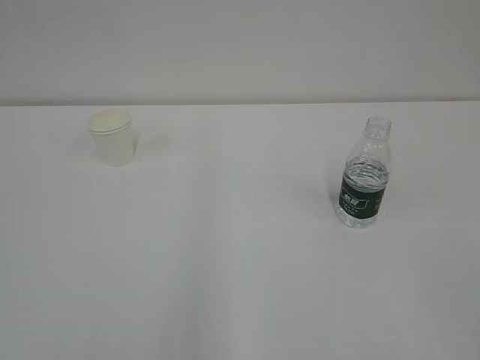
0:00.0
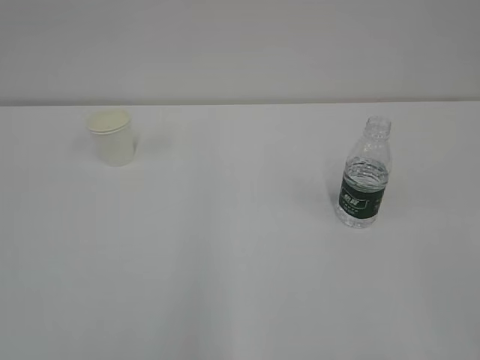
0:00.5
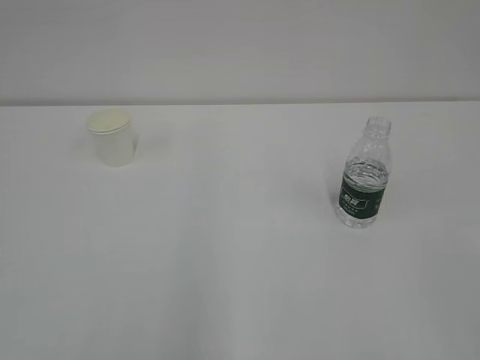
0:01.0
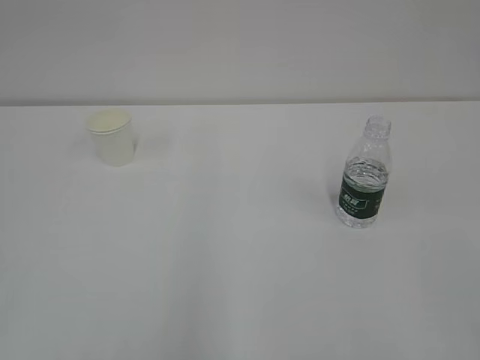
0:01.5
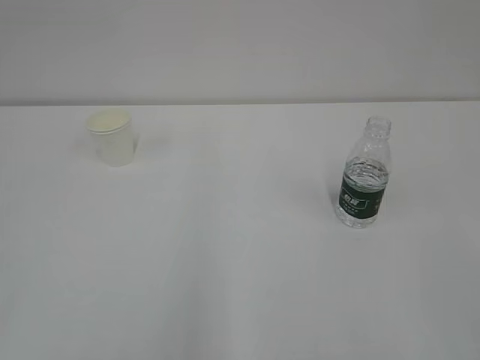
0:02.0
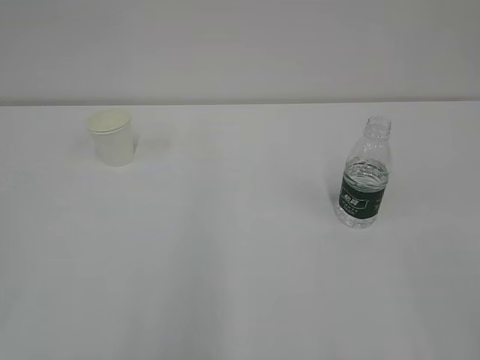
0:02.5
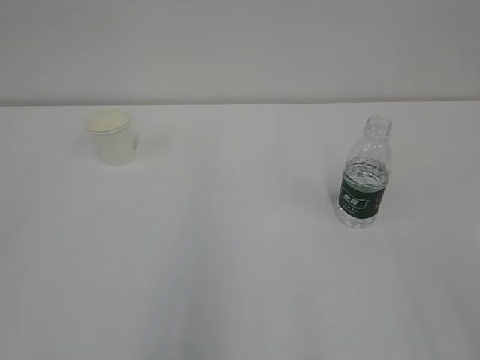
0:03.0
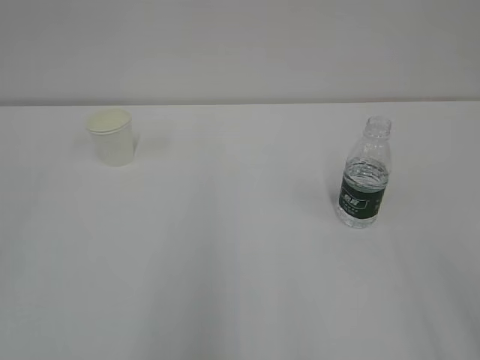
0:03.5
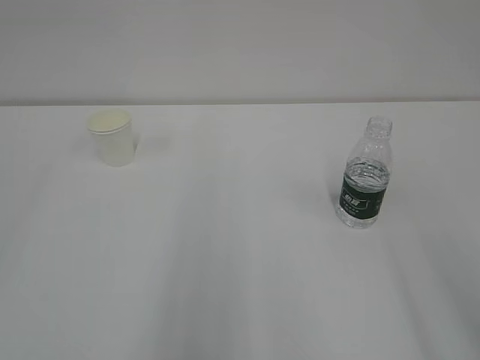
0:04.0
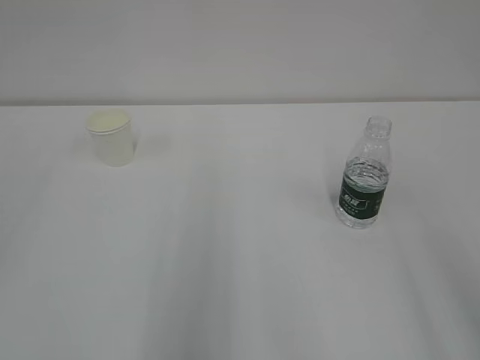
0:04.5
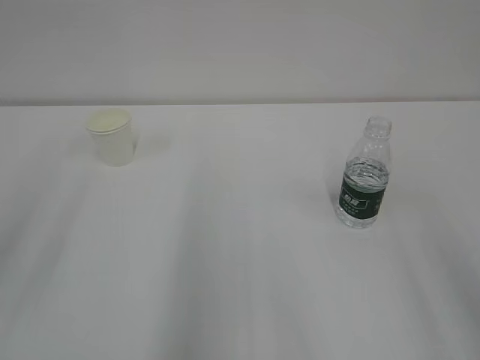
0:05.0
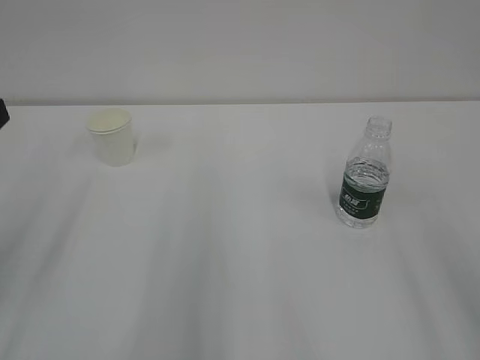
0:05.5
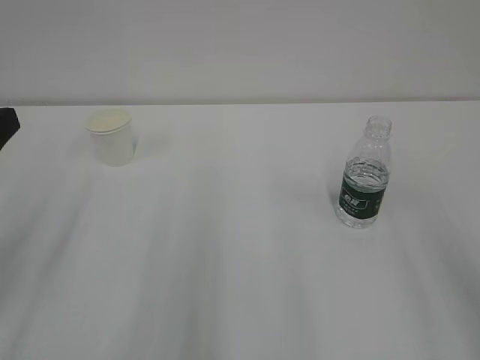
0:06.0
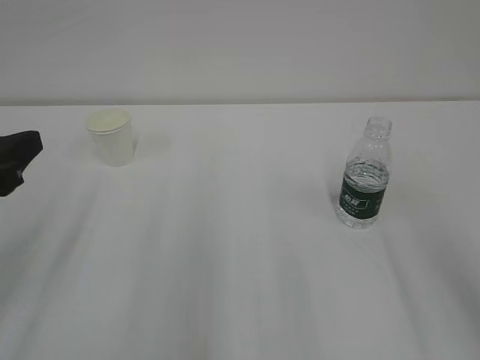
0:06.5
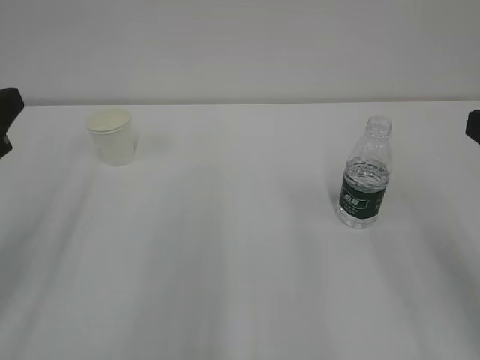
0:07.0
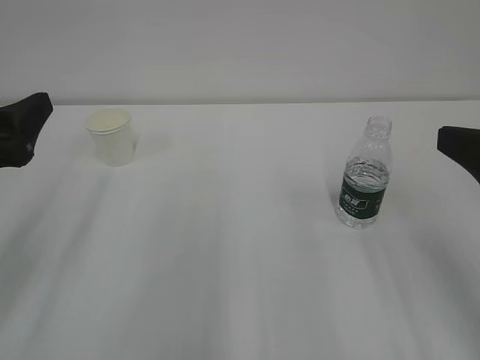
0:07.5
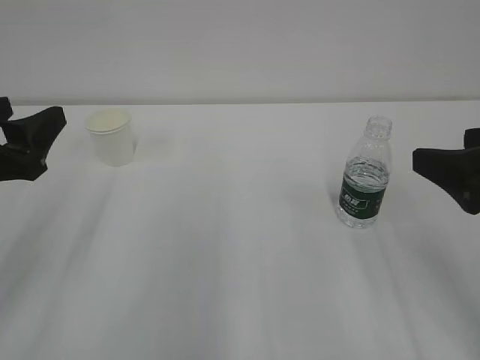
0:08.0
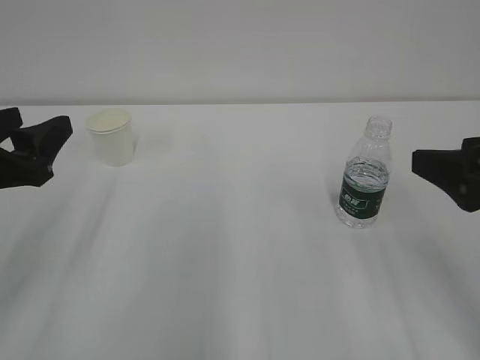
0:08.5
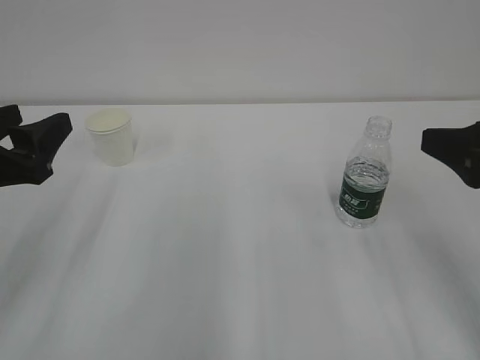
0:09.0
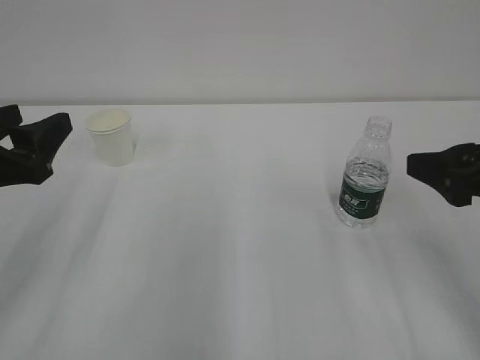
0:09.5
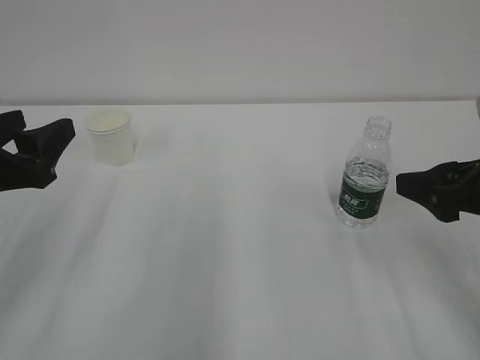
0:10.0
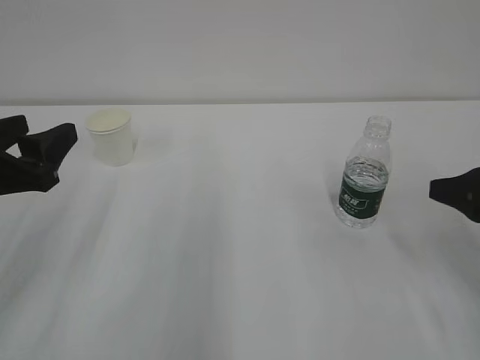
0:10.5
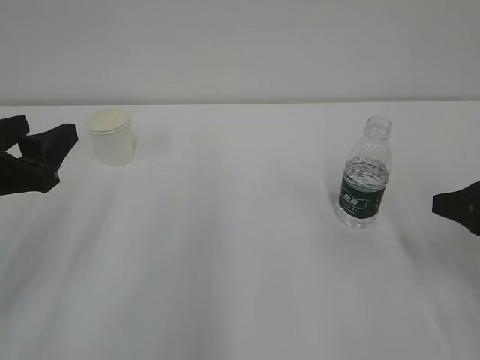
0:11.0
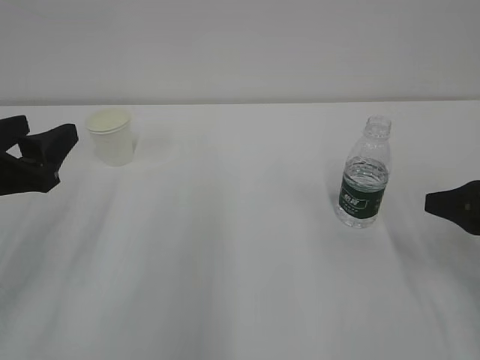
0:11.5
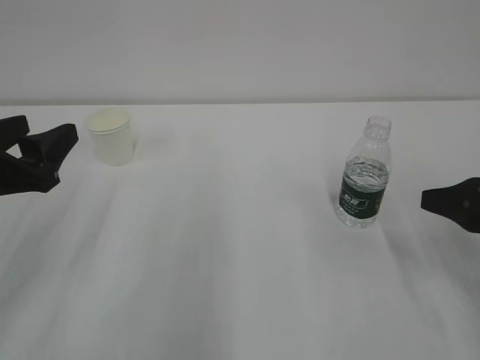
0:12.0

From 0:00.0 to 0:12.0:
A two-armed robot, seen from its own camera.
From 0:06.0 to 0:08.0: The right gripper travels forward and downward by approximately 10 cm, and opens its fingers.
From 0:08.0 to 0:10.0: The right gripper changes place by approximately 5 cm.
From 0:10.0 to 0:12.0: The right gripper is displaced to the right by roughly 5 cm.

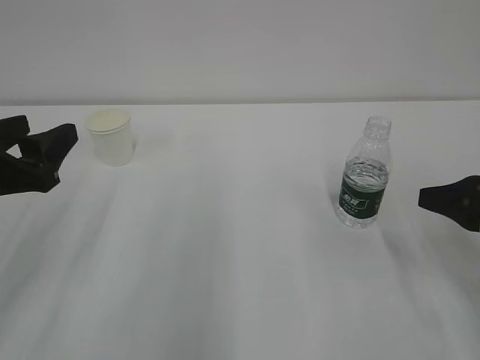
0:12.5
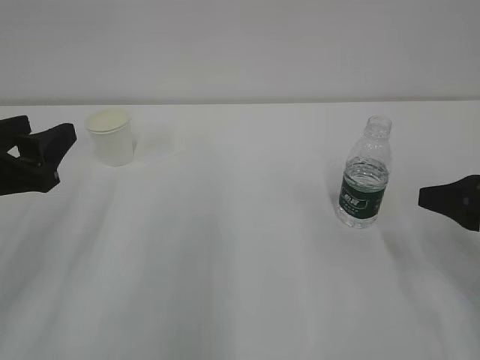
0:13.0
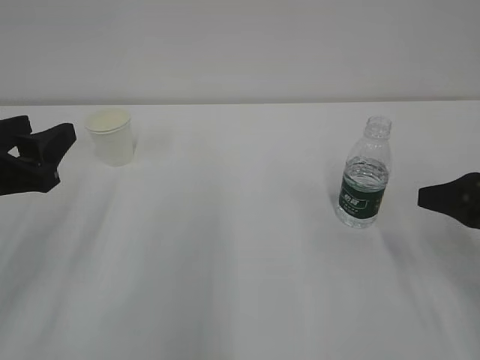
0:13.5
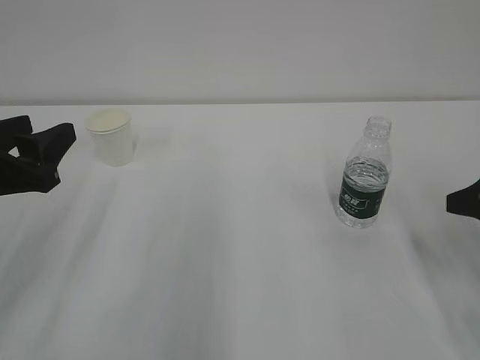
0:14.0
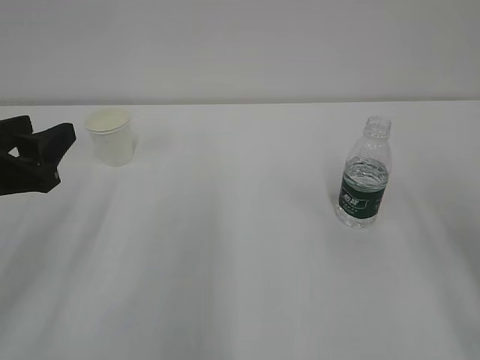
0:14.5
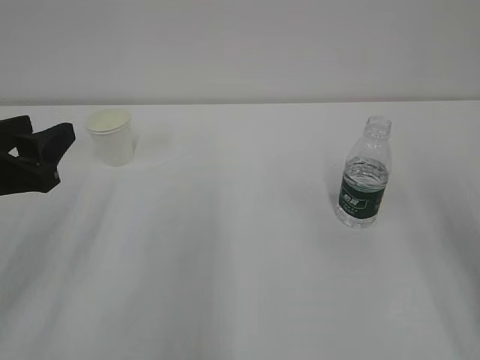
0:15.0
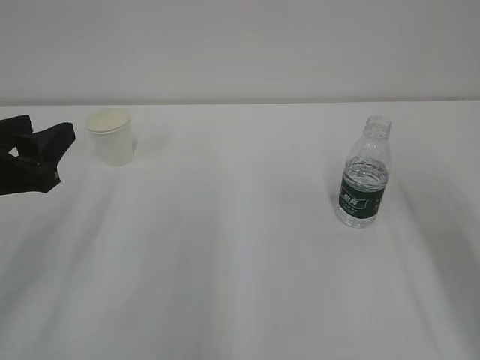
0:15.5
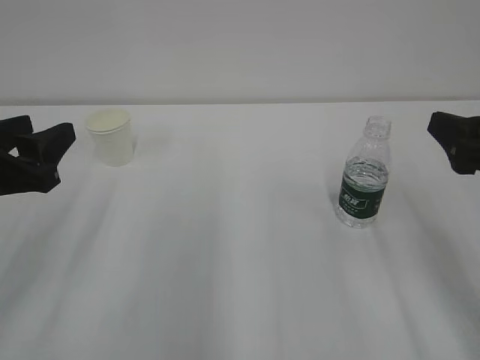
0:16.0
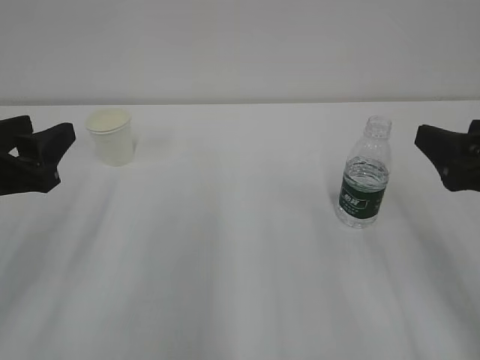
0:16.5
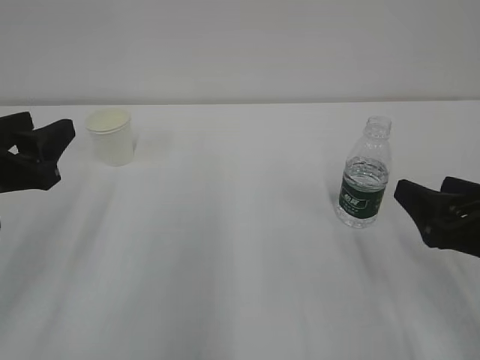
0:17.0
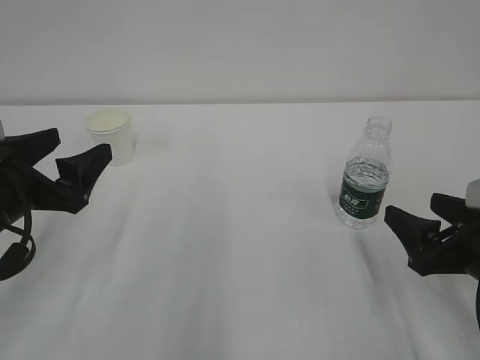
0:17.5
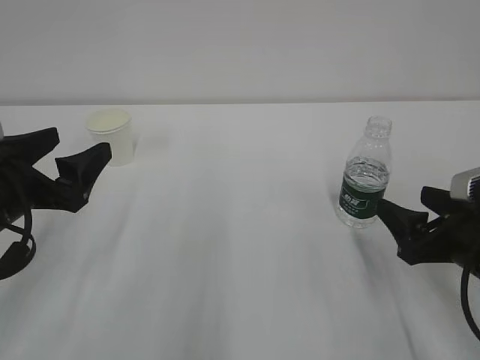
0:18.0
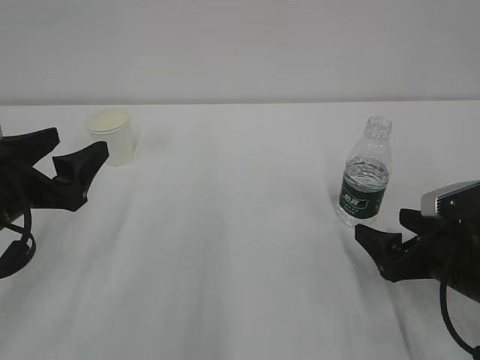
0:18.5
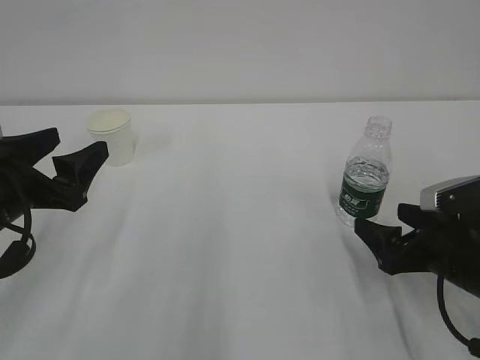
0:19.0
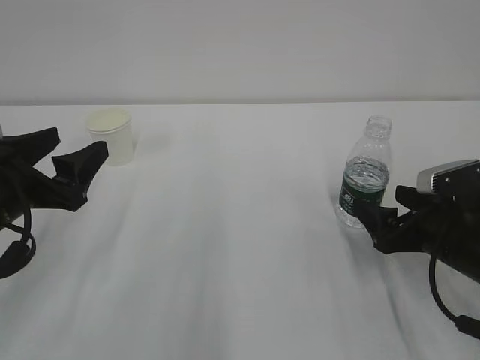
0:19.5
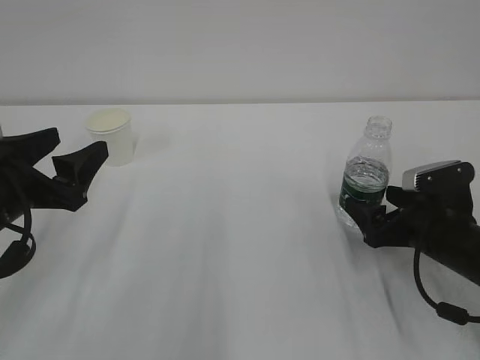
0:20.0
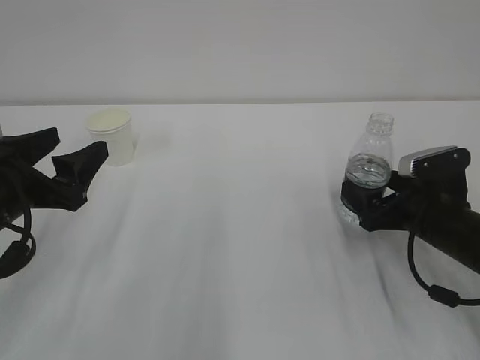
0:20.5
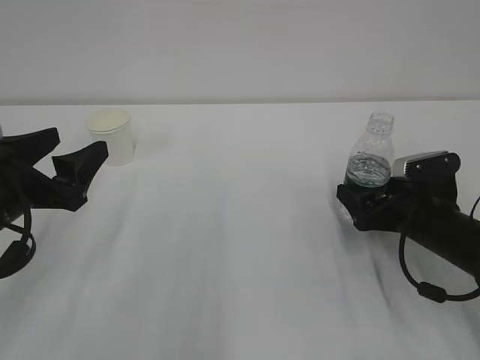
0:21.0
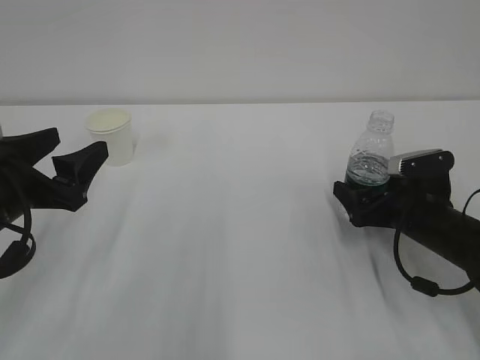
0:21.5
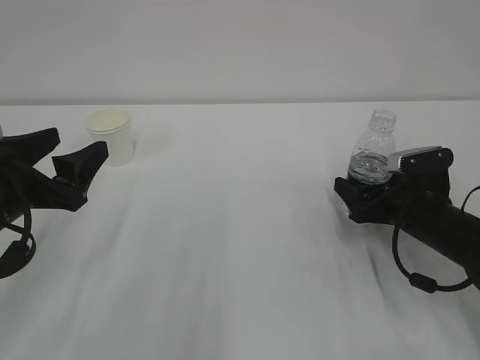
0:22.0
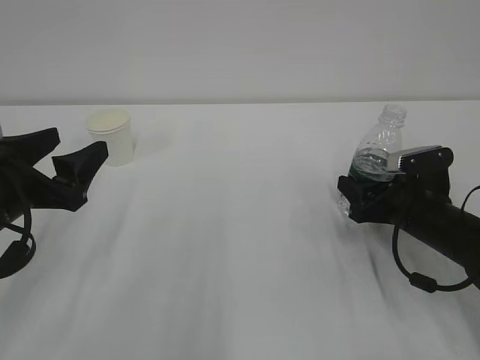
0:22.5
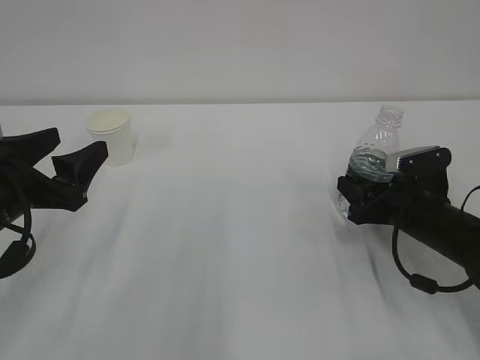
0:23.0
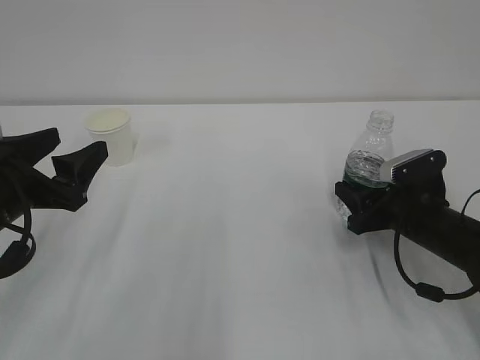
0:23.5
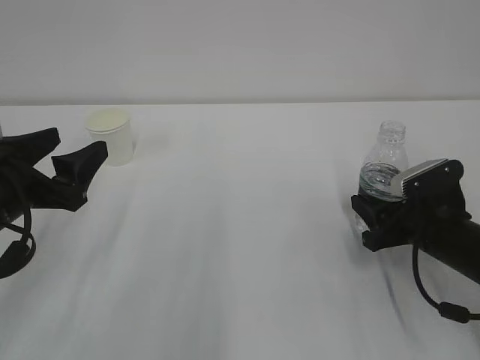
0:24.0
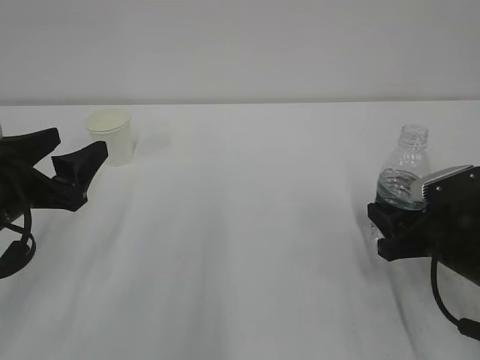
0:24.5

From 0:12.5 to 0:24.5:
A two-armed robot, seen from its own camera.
From 0:12.5 to 0:14.5: The right gripper moves upward, approximately 5 cm.
From 0:14.5 to 0:16.5: The right gripper shifts about 5 cm to the left.
From 0:16.5 to 0:18.5: The right gripper goes about 15 cm downward.
From 0:18.5 to 0:20.5: The right gripper goes roughly 5 cm forward.
From 0:20.5 to 0:22.5: The right gripper closes up.
From 0:22.5 to 0:24.5: The right gripper shifts roughly 5 cm backward.

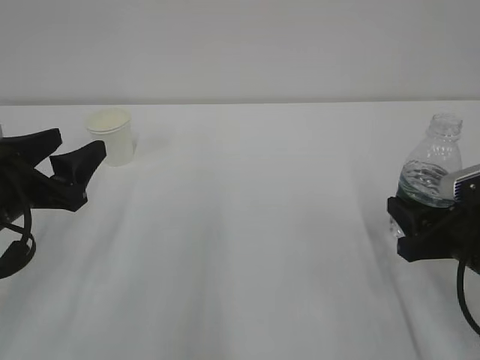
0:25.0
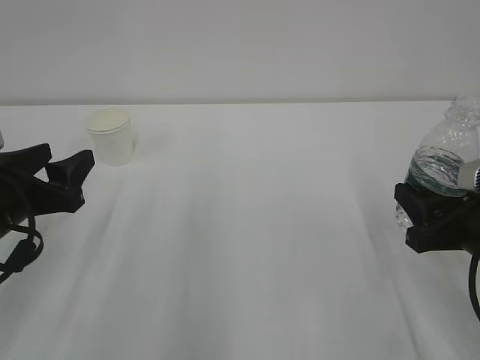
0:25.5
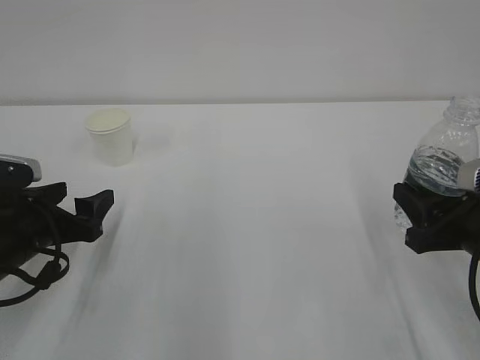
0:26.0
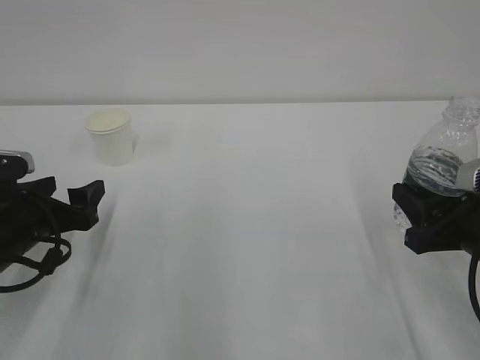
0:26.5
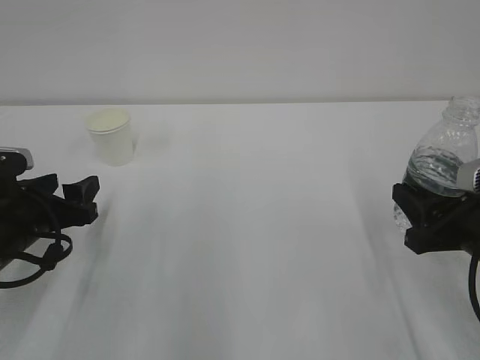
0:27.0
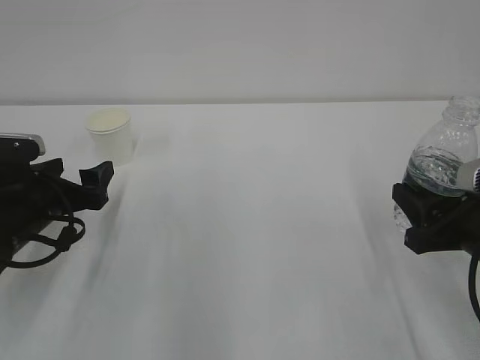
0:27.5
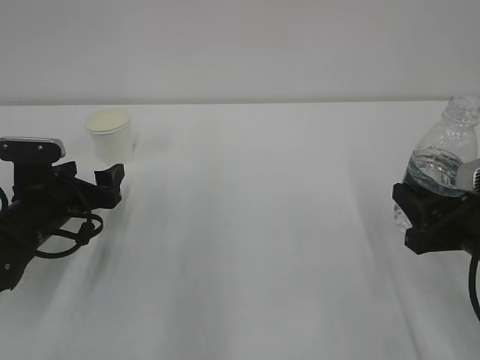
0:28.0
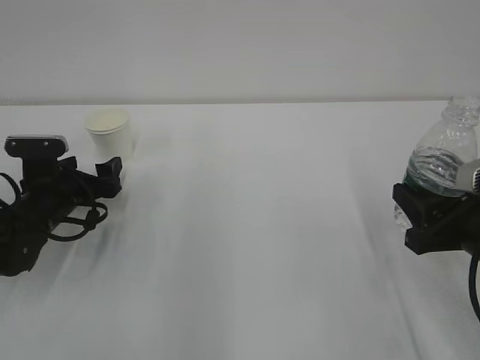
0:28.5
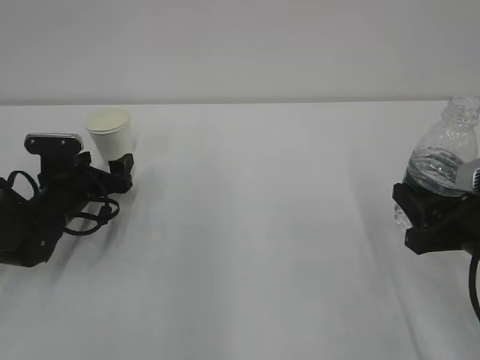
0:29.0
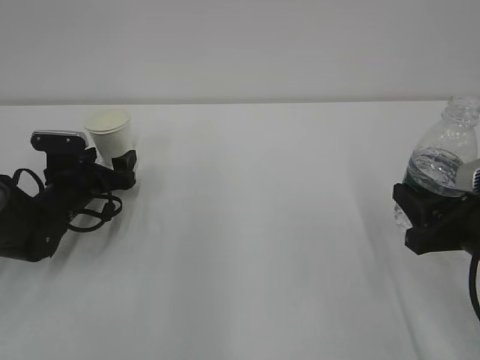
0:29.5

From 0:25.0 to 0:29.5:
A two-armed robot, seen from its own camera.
From 0:25.0 to 0:27.0: The left gripper shifts some 5 cm downward.
From 0:27.0 to 0:29.5: The left gripper moves forward and downward, roughly 15 cm.
